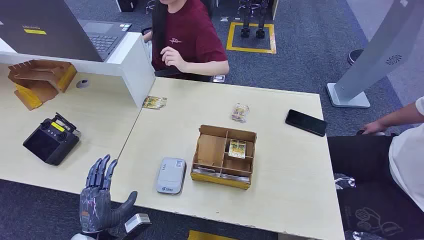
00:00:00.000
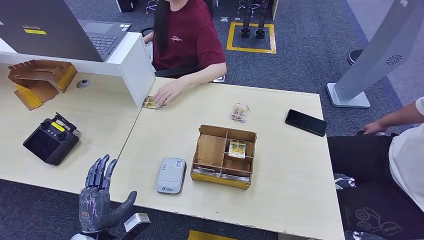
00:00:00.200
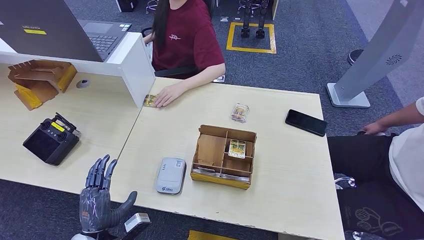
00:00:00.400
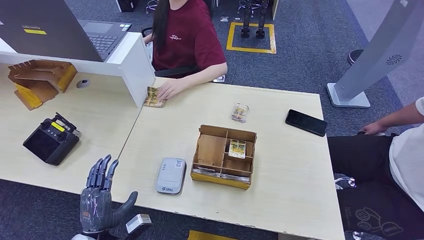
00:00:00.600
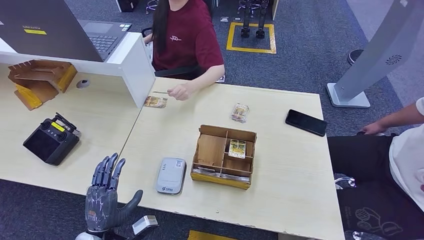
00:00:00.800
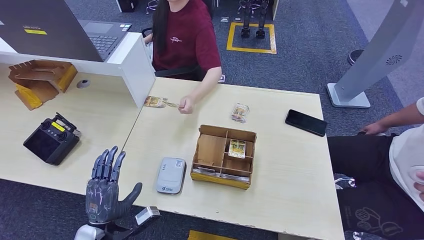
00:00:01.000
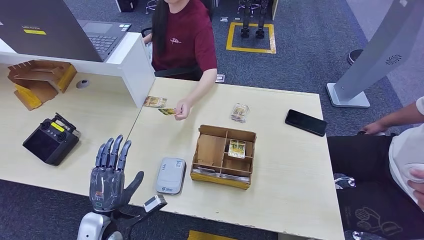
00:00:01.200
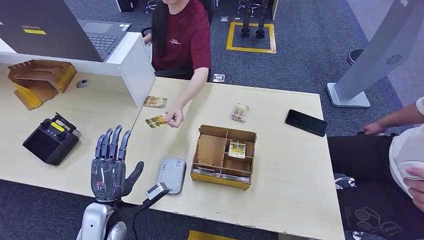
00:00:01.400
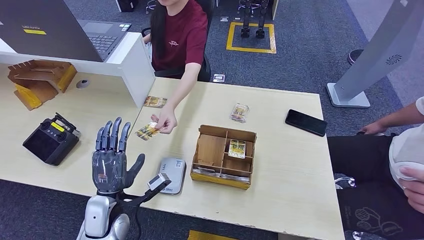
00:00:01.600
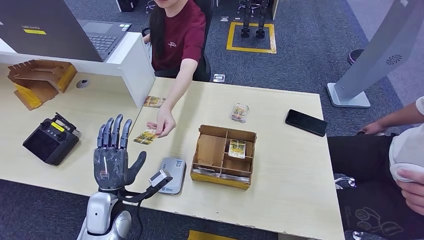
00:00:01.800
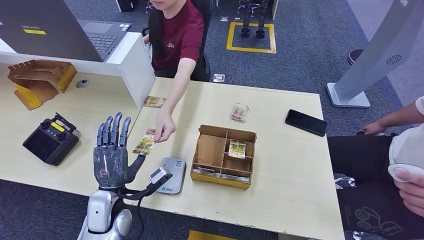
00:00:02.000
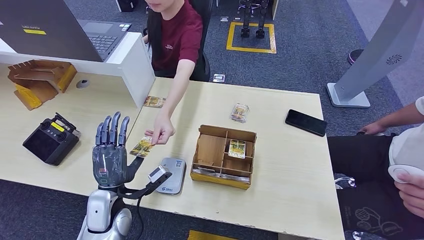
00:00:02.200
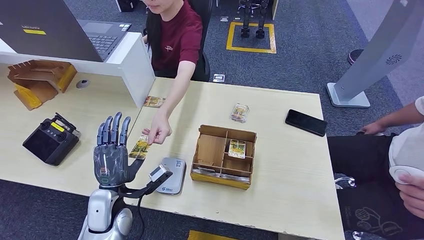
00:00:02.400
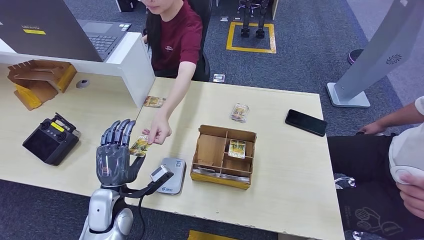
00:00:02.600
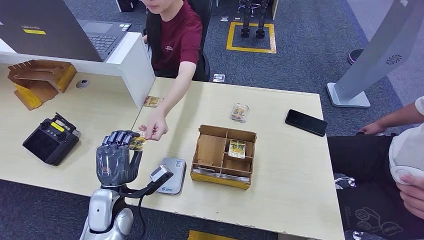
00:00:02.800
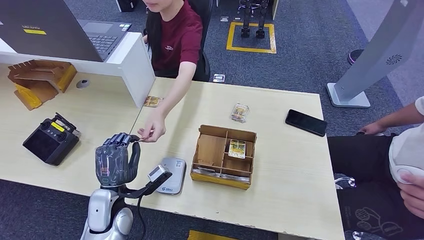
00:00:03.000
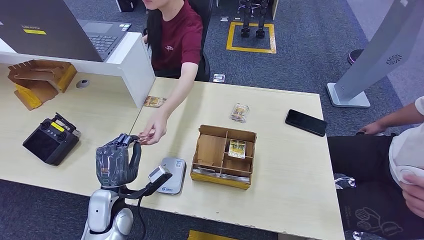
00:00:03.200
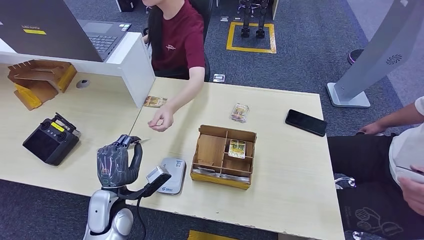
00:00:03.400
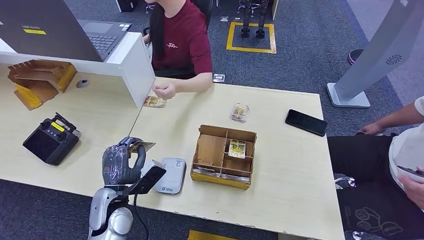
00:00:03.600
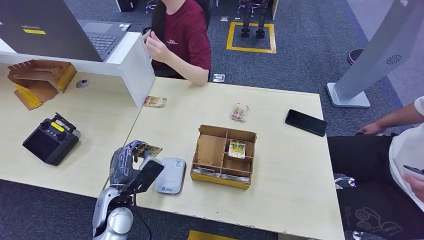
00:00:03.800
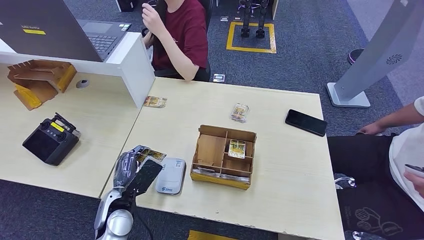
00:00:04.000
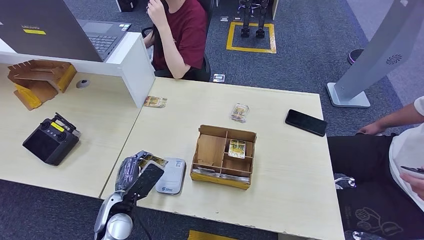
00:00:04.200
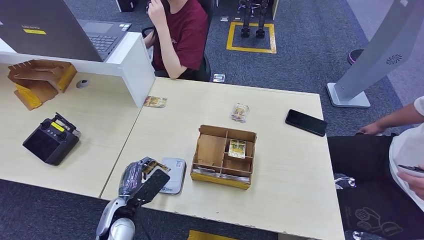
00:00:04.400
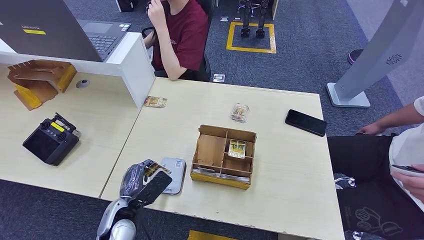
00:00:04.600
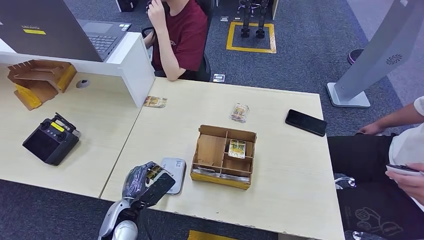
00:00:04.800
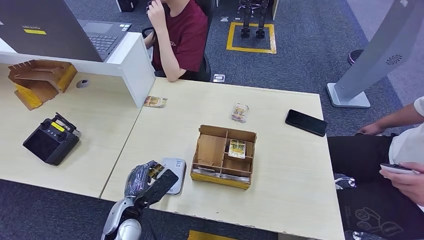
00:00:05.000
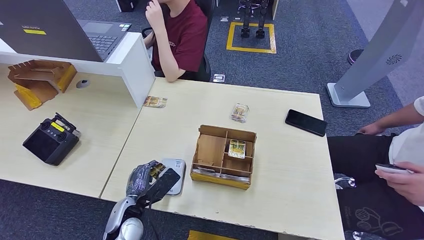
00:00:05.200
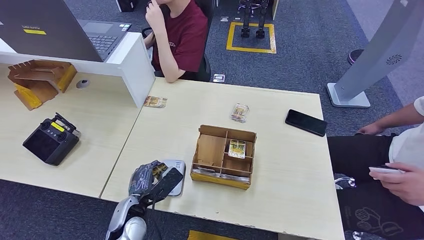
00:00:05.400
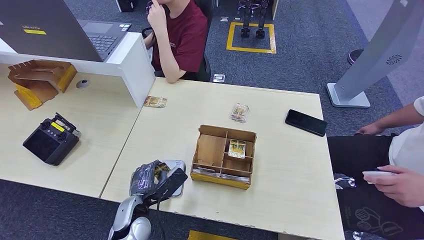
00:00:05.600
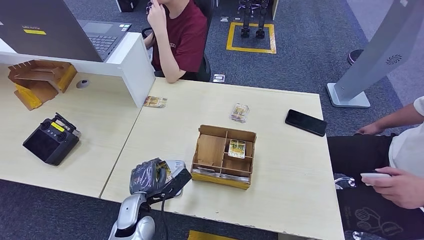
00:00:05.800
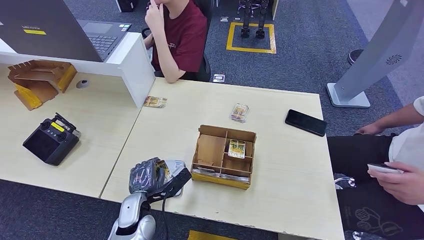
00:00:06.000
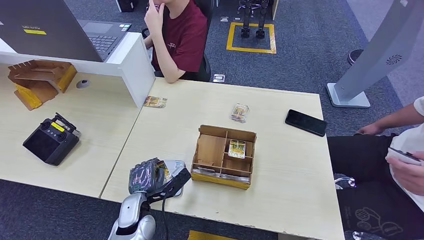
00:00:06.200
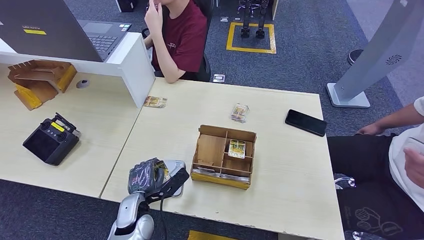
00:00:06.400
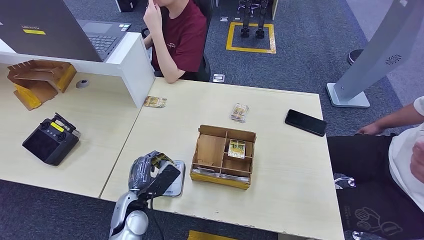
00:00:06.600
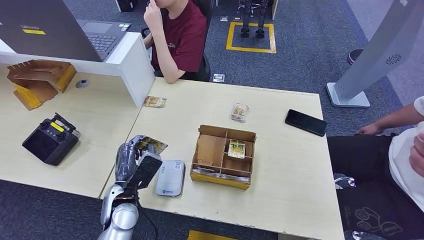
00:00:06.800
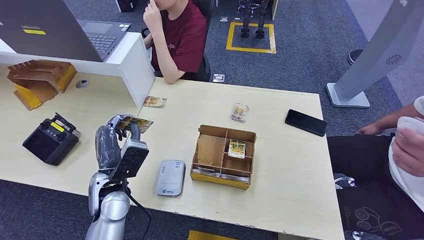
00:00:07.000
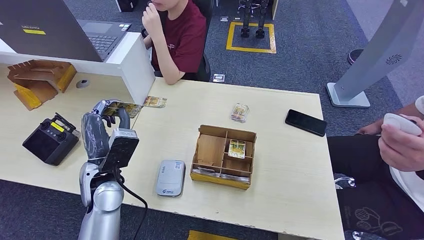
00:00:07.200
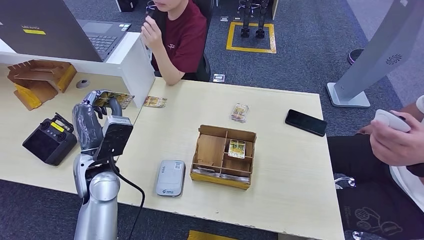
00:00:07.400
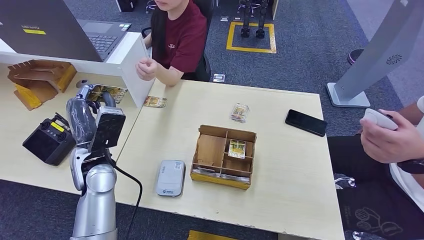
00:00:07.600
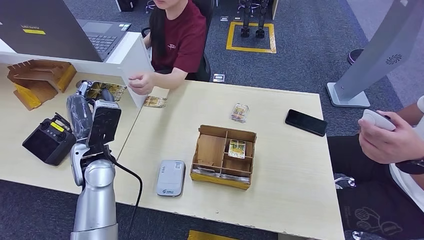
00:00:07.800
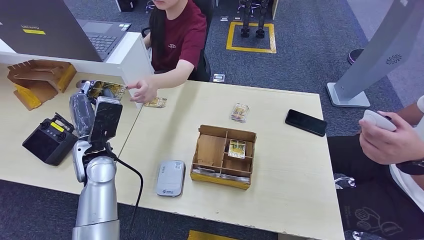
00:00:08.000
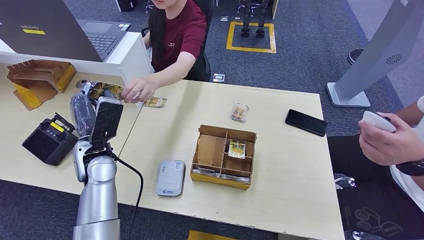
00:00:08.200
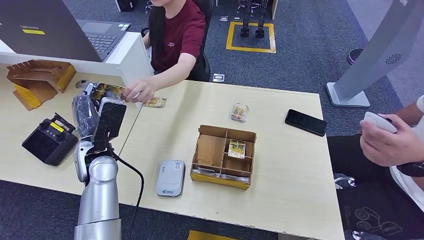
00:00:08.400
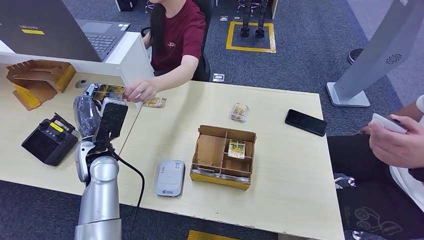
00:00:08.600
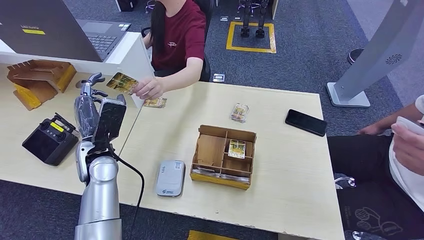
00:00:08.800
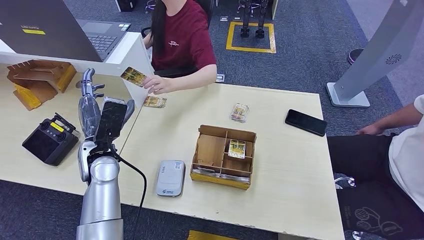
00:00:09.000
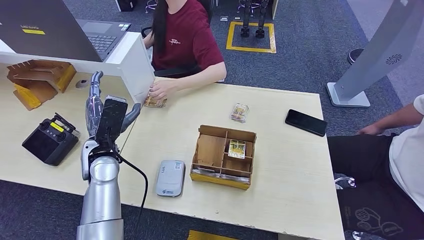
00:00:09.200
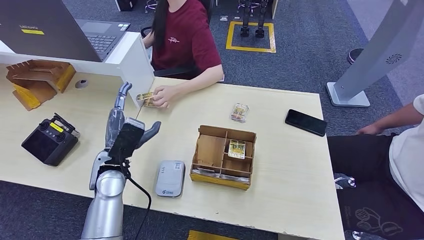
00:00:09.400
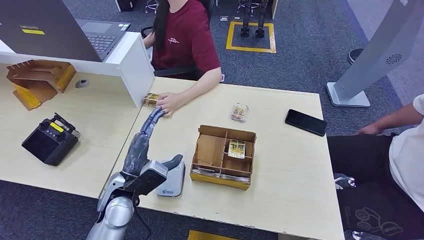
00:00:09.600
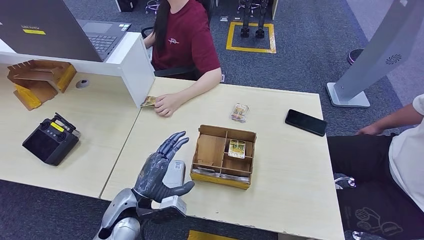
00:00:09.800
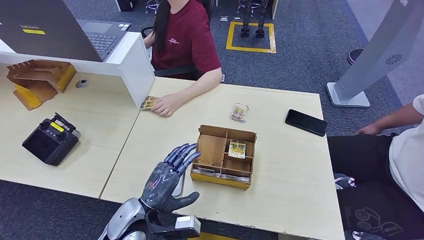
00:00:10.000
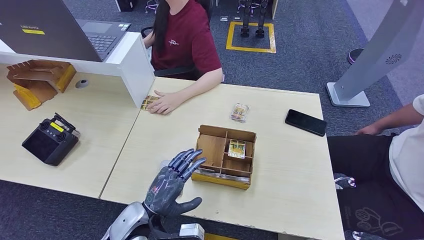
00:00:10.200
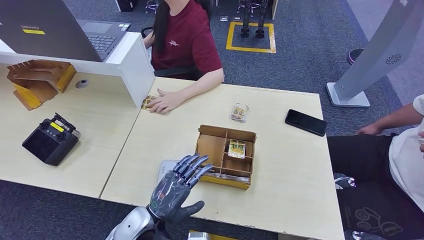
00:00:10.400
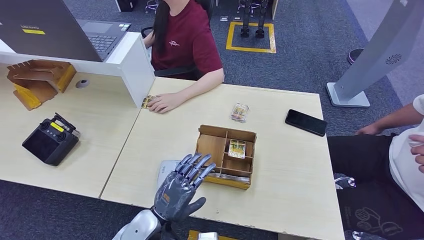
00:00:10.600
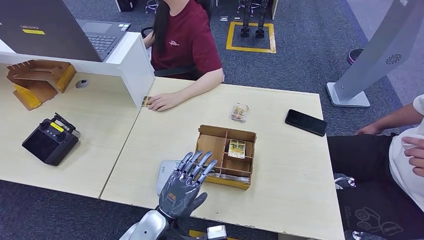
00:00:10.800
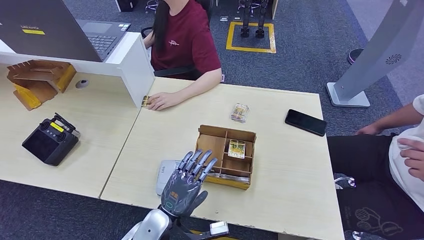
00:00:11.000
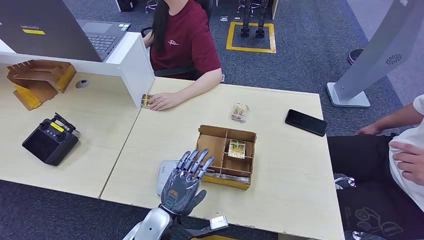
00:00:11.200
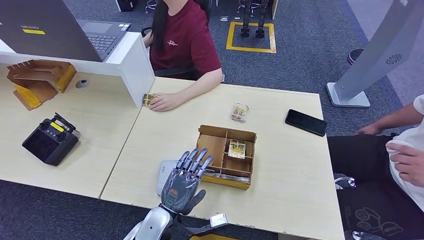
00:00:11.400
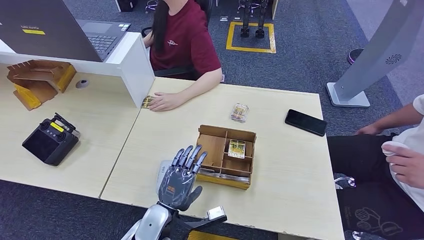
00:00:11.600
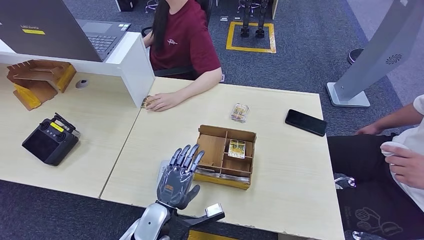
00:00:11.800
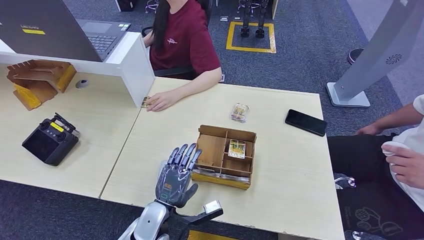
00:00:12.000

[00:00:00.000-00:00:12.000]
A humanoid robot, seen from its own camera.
Step, 00:00:00.000 to 00:00:03.600: Take the ID card from the person's hand.
Step, 00:00:03.800 to 00:00:06.800: Place the ID card on the card reader.
Step, 00:00:07.000 to 00:00:08.600: Hand the ID card to the person.
00:00:01.600 to 00:00:03.000: The hands move only a little.
00:00:06.000 to 00:00:07.600: The left hand heads upward and to the left, covering some 15 cm.
00:00:07.600 to 00:00:09.000: There are only small adjustments of the hands.
00:00:09.000 to 00:00:10.400: The left hand moves backward, to the right and downward, some 20 cm.

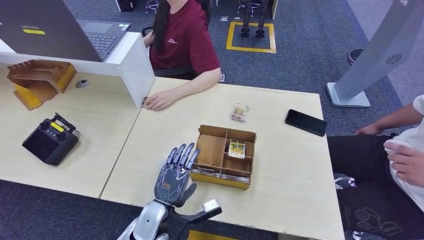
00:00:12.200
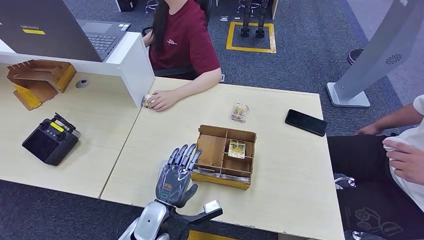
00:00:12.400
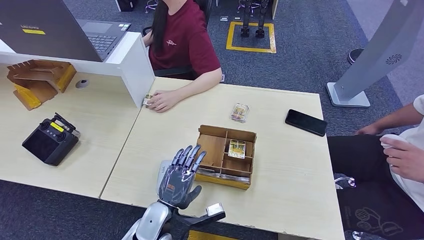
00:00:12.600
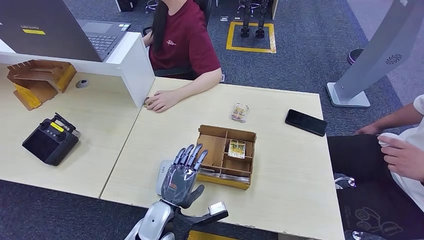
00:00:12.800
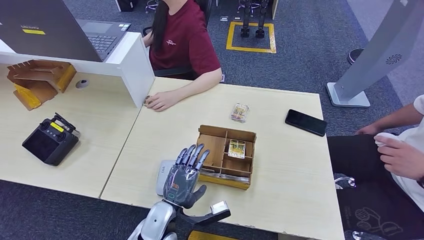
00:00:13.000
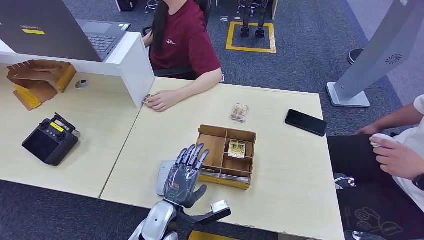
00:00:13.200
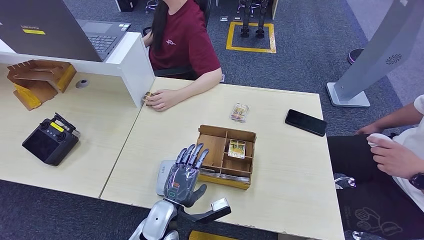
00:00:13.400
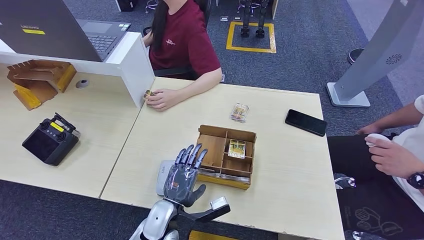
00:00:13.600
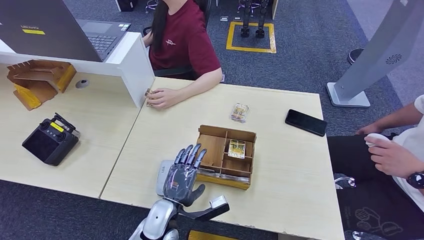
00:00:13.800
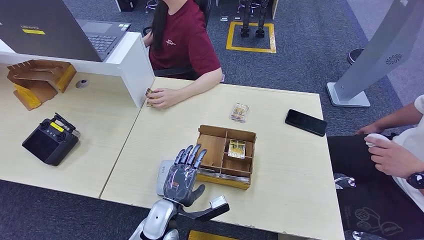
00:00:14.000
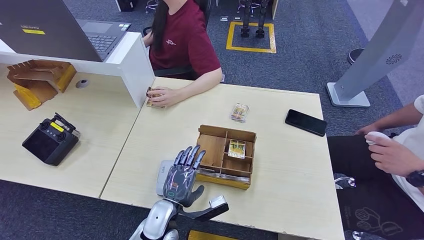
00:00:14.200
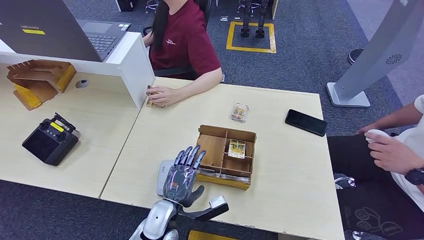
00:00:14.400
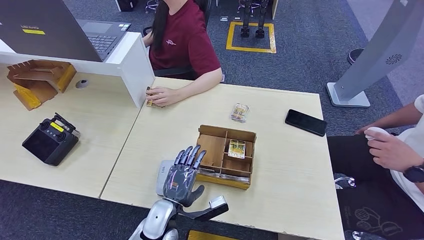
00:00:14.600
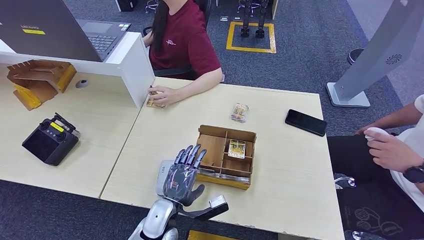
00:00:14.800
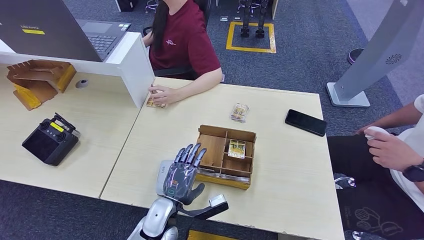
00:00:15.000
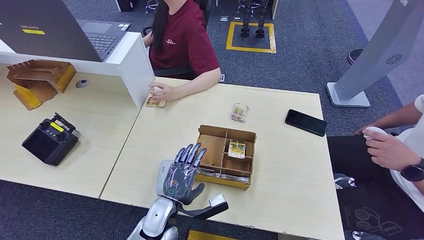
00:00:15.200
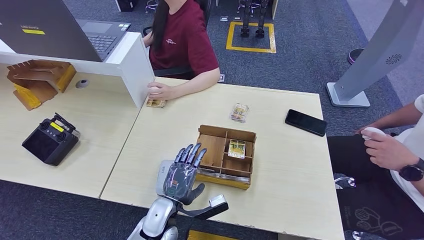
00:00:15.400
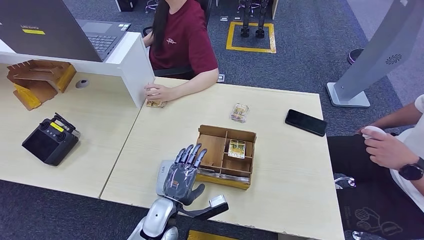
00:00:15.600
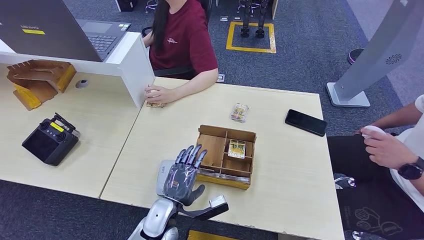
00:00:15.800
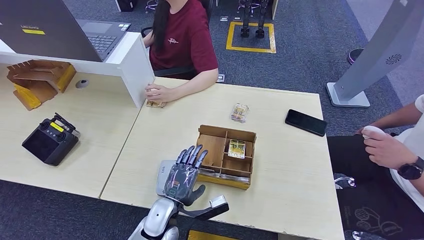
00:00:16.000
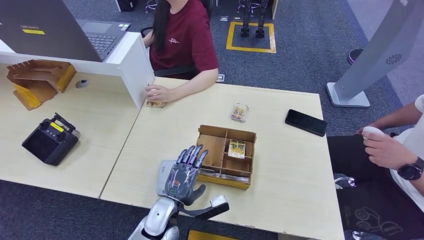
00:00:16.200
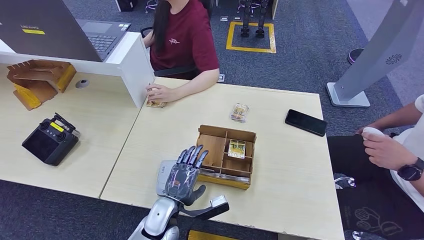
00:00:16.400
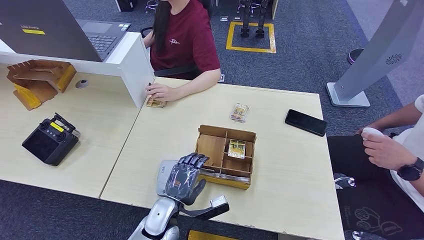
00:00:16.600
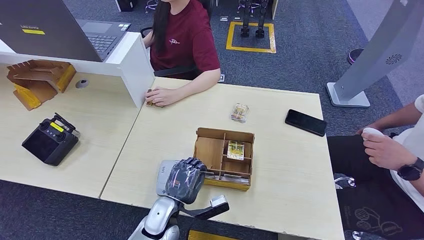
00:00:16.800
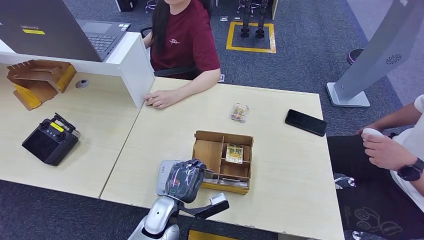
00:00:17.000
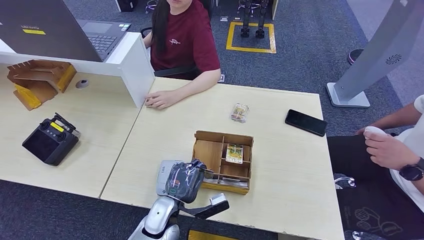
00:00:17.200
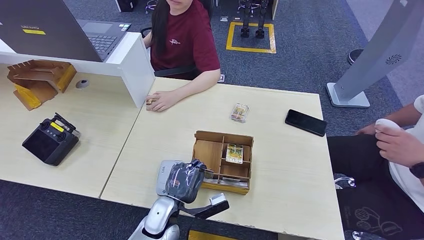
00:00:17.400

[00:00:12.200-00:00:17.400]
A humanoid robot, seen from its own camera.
00:00:12.200 to 00:00:14.000: The hands make only small movements.
00:00:14.000 to 00:00:15.600: Both hands stay put.
00:00:15.600 to 00:00:17.400: Both hands stay put.
